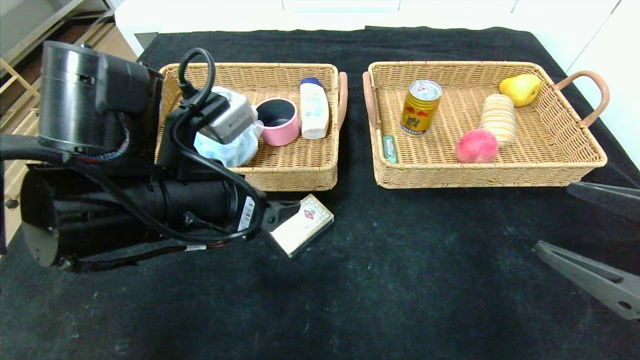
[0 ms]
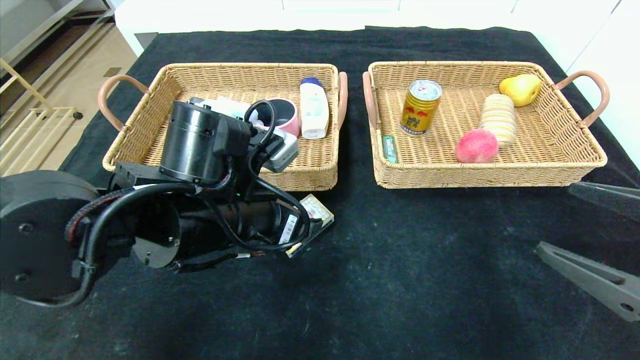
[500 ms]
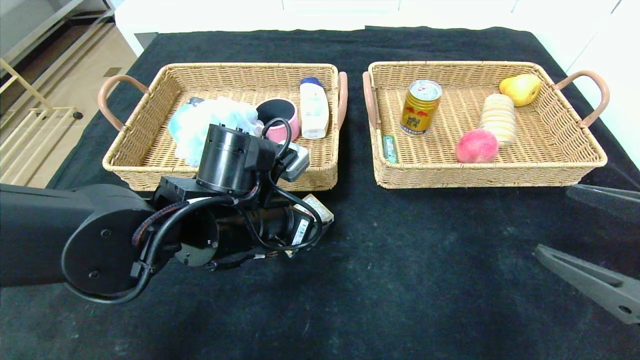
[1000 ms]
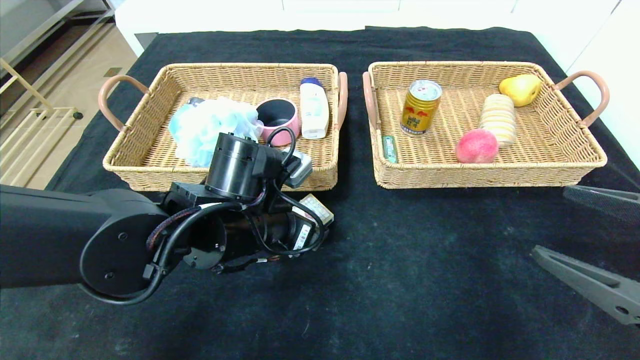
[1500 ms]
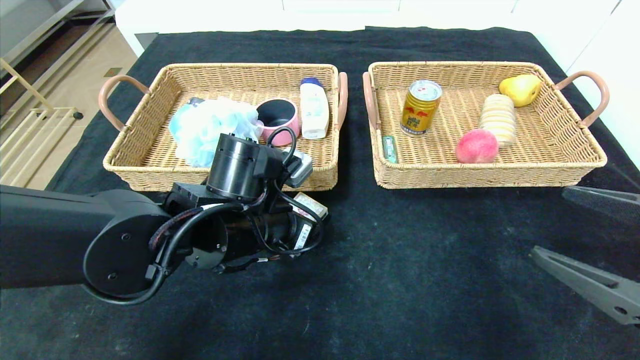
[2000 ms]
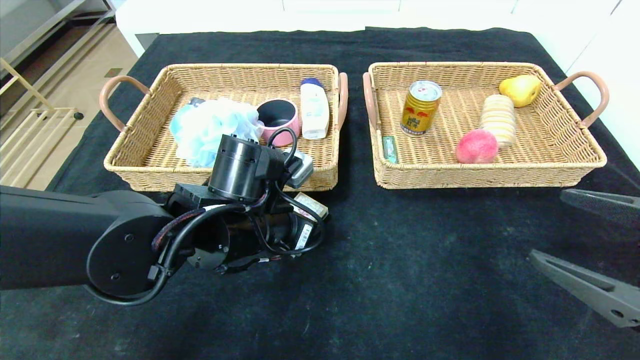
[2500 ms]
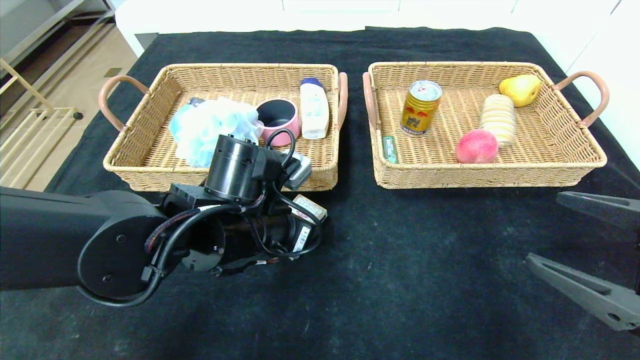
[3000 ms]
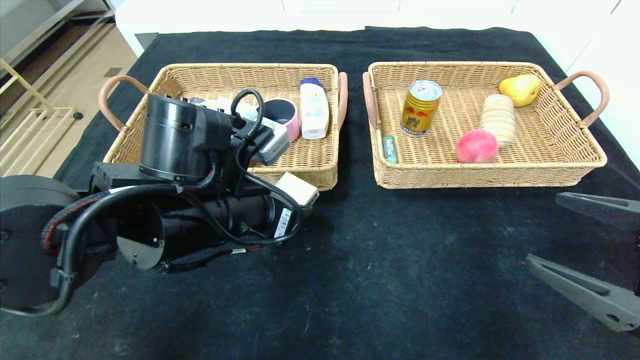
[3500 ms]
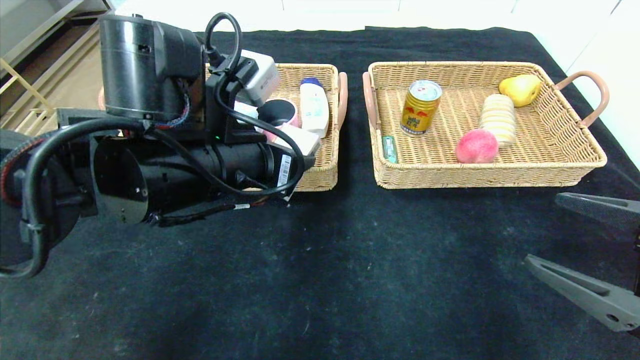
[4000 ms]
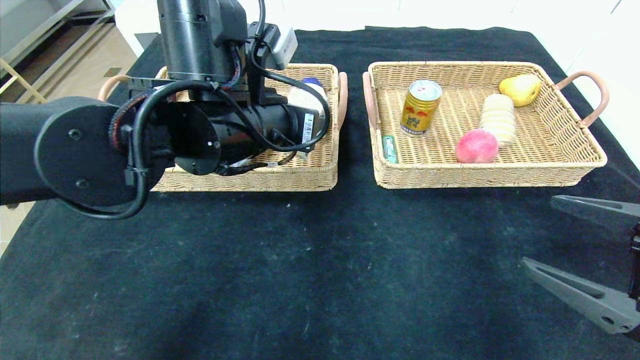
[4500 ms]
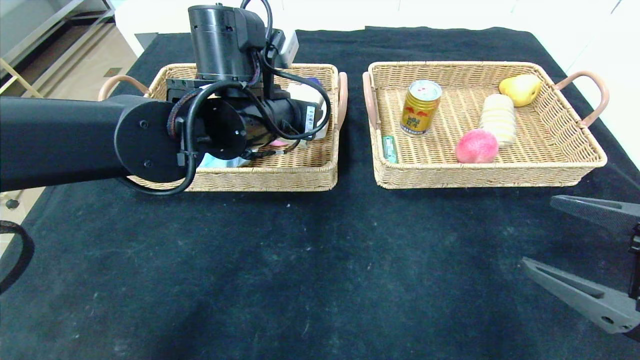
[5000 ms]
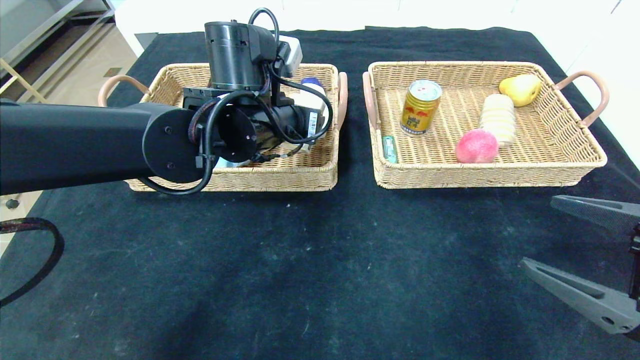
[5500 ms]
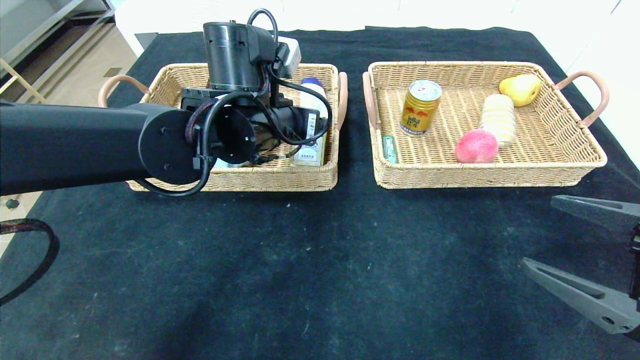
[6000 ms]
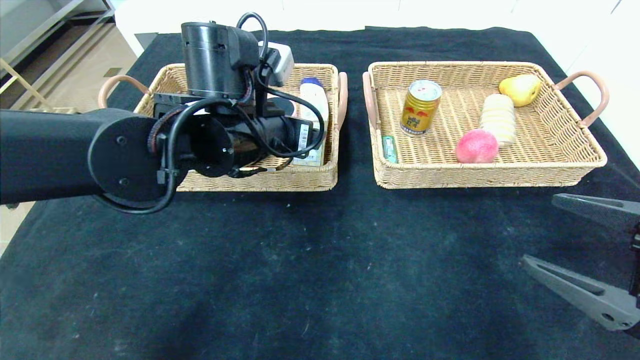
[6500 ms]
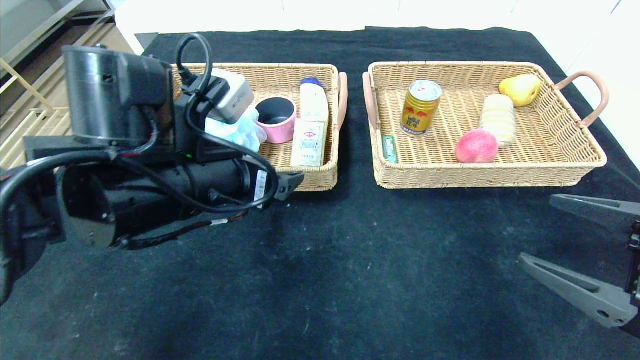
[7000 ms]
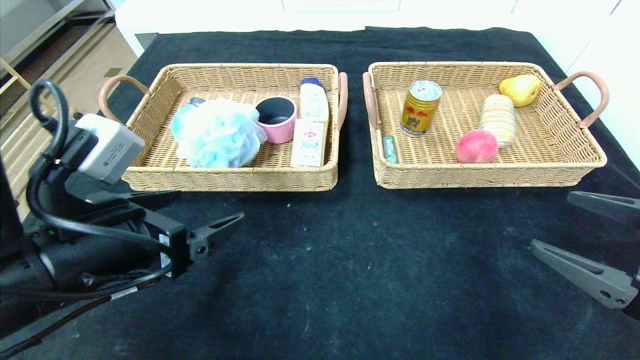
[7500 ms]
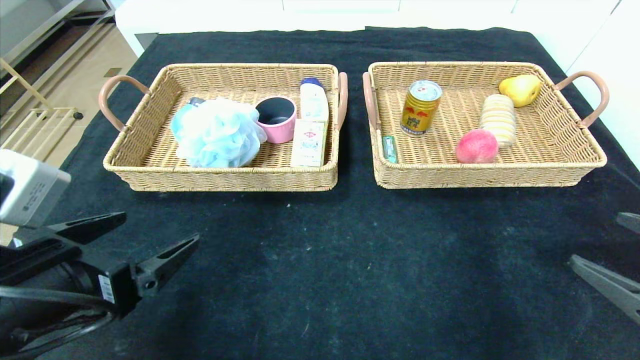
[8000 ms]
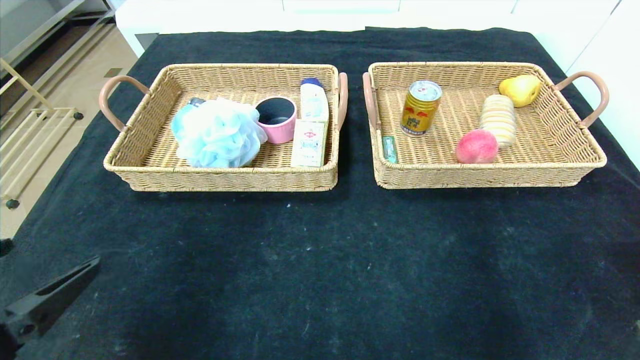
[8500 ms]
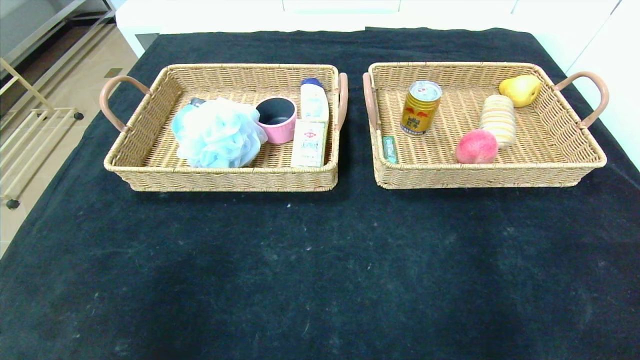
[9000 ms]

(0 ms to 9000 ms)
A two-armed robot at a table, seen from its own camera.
0 ms - 2000 ms: The left gripper moves downward and forward, approximately 10 cm, and closes.
2000 ms - 4500 ms: The left gripper heads upward, covering some 10 cm.
4500 ms - 7000 ms: The left gripper is displaced backward by some 5 cm, and opens its fingers.
7000 ms - 9000 ms: The right gripper shifts approximately 15 cm backward and downward, while the left gripper is displaced backward and to the left by approximately 30 cm.
